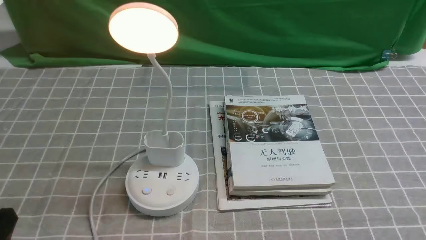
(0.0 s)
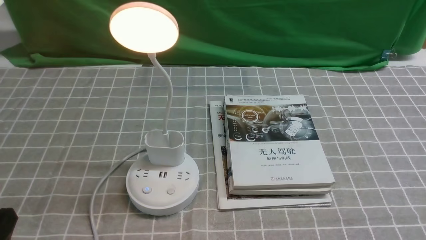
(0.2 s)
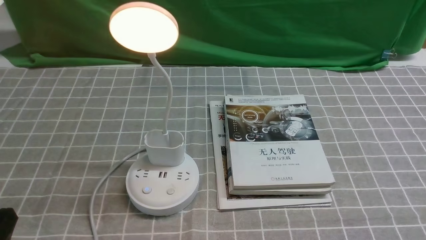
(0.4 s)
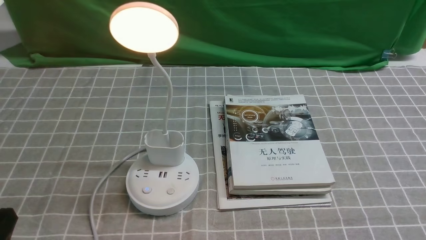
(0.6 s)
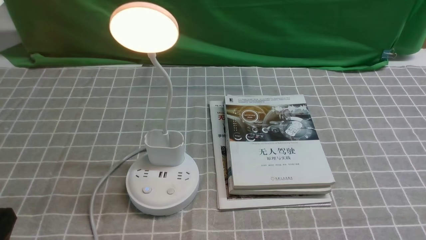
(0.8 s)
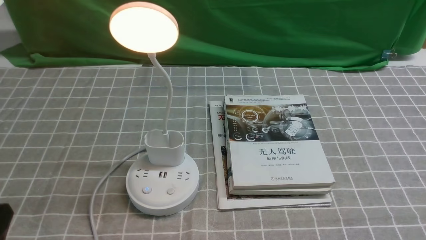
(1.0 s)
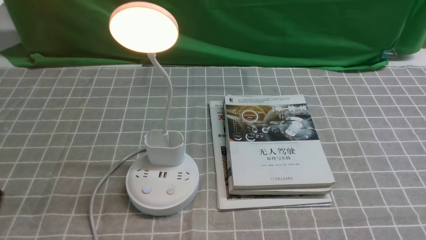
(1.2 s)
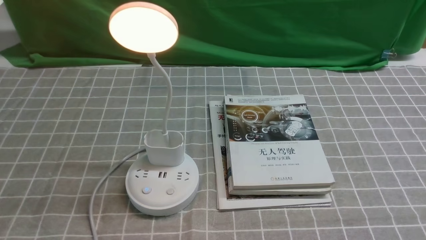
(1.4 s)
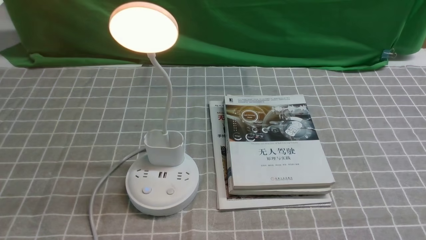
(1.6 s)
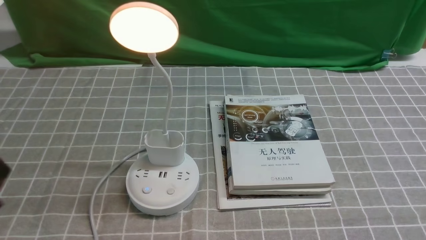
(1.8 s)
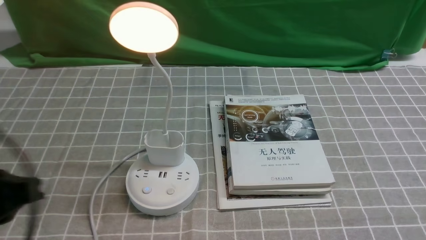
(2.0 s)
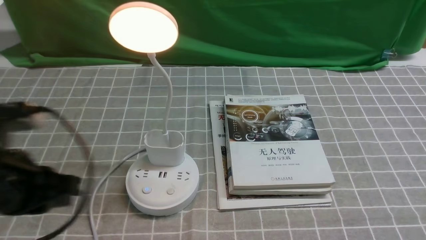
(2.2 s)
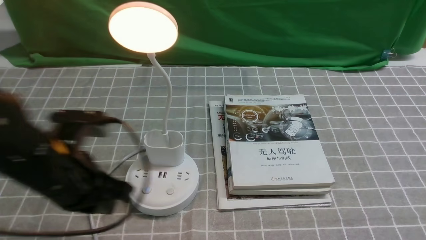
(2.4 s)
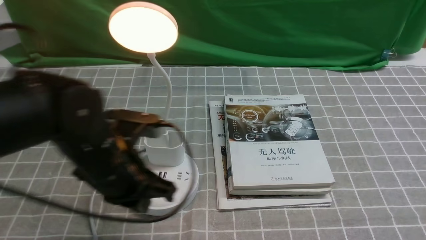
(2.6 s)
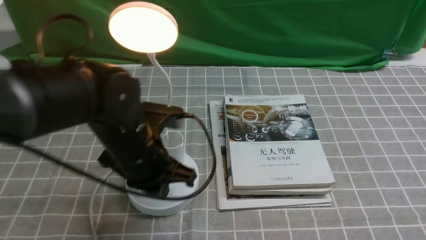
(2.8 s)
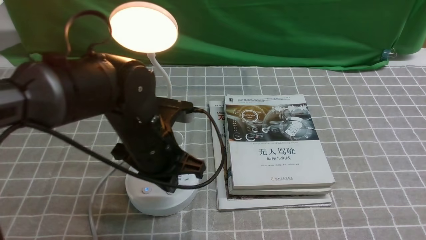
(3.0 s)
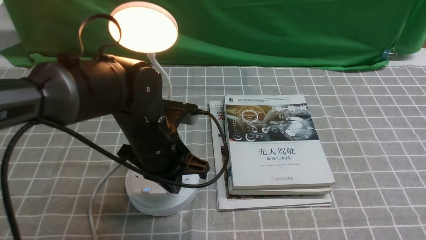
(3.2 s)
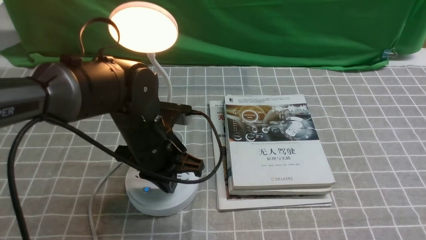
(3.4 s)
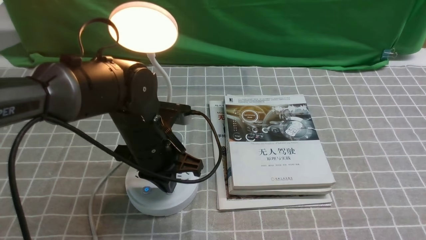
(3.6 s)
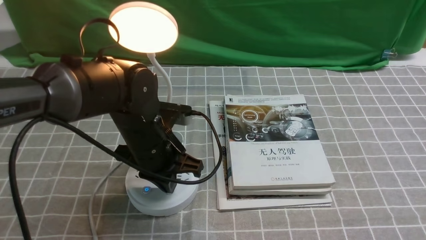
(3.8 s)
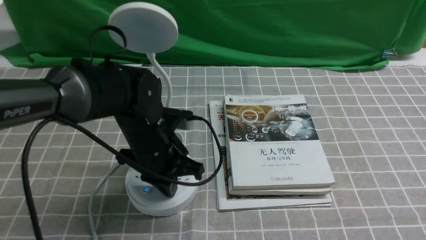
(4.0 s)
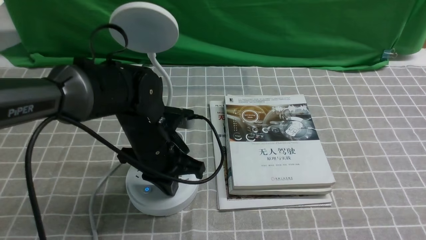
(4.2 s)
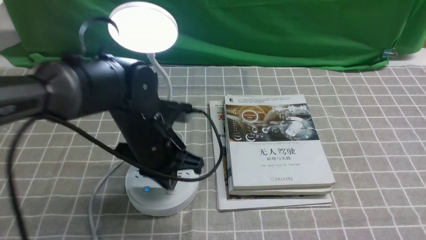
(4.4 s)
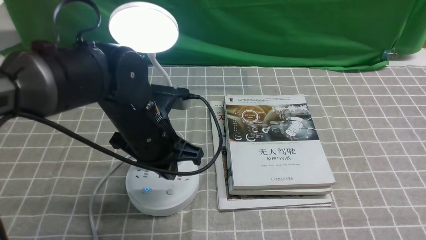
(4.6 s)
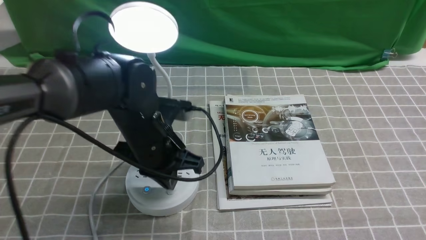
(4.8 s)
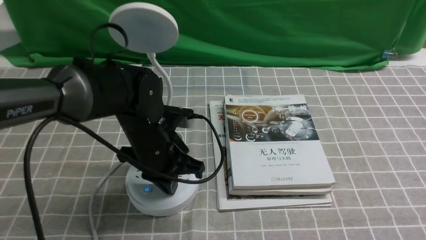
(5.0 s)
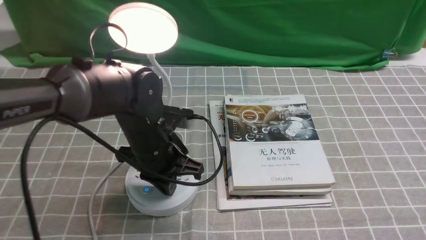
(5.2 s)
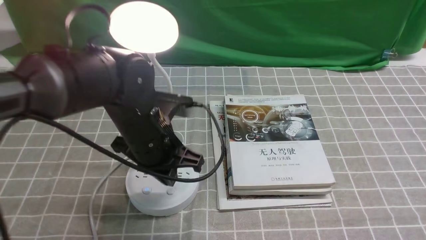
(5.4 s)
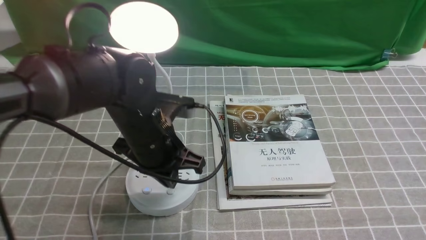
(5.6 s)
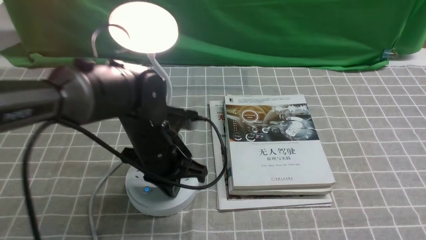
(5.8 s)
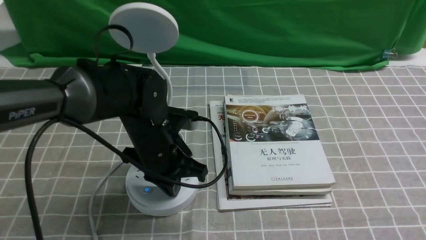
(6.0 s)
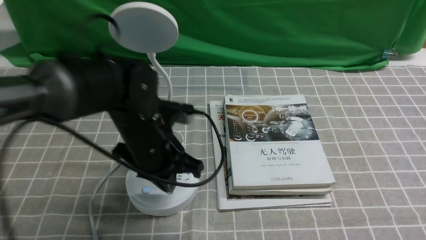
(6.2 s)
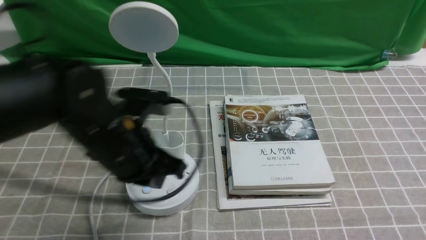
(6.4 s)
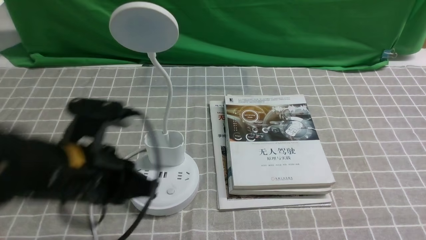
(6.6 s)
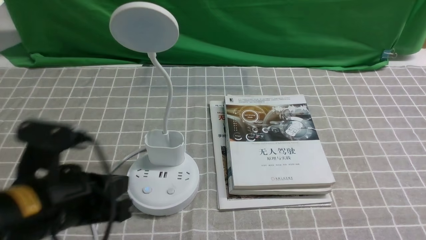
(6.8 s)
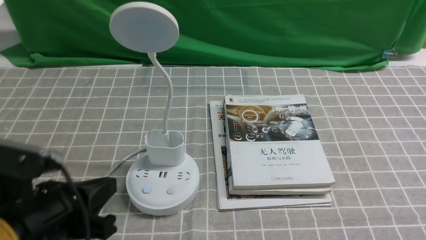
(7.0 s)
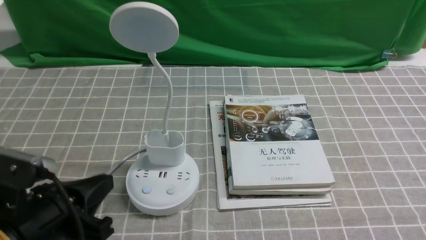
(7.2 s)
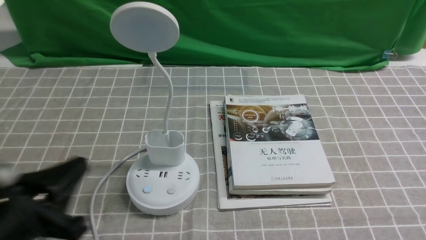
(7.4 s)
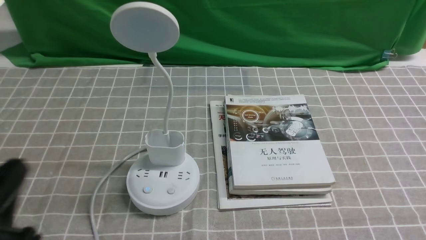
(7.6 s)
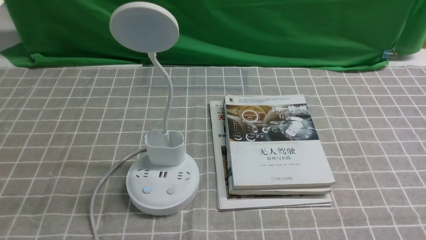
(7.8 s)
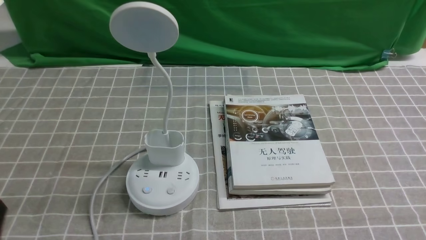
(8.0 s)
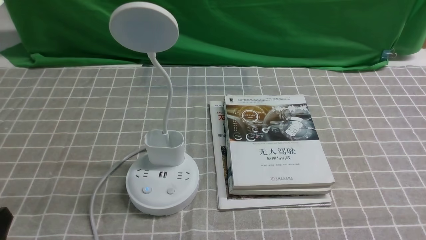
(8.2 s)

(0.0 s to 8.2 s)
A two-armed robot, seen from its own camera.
Task of the whole recording: turn off the desk lamp on the grey coffee tablecloth by hand.
Step, 0.0 s - 6.2 s: use the left arm to press the button switch on the lamp holder.
0.0 s - 1.6 s: The left gripper is displaced upward by approximately 5 cm.
1.6 s - 3.2 s: The left gripper heads forward and to the right, covering approximately 30 cm.
3.2 s - 5.0 s: The grippers move only a little.
5.0 s - 6.6 s: The left gripper heads backward, to the left and upward, covering about 15 cm.
6.6 s - 8.2 s: The left gripper goes approximately 20 cm backward, to the left and downward, and opens.

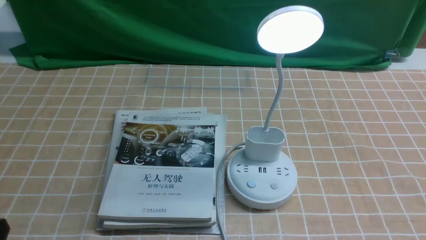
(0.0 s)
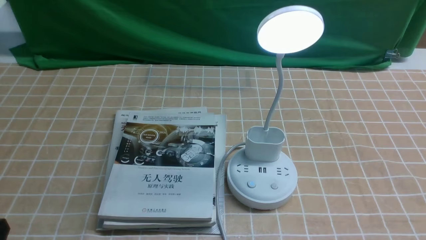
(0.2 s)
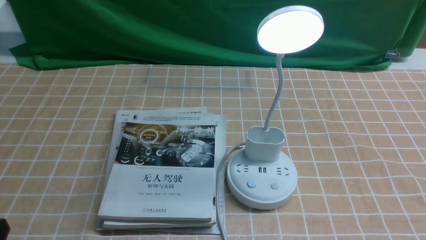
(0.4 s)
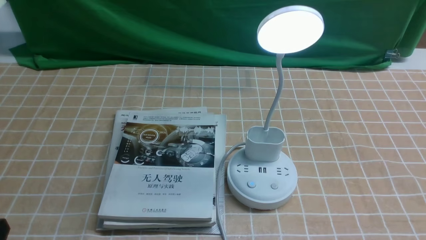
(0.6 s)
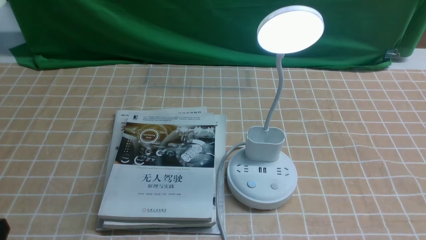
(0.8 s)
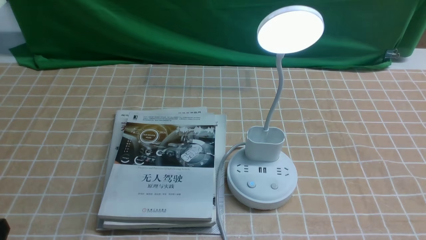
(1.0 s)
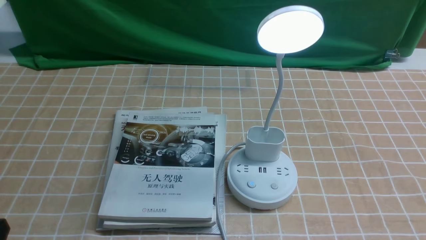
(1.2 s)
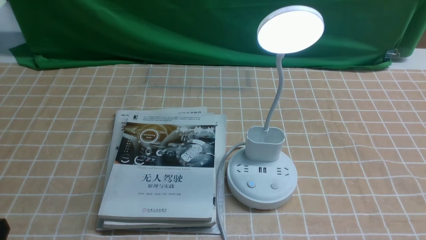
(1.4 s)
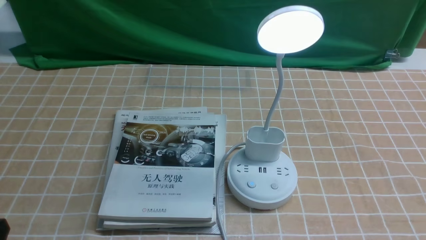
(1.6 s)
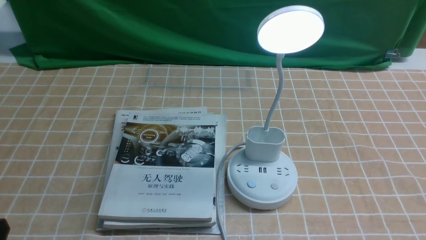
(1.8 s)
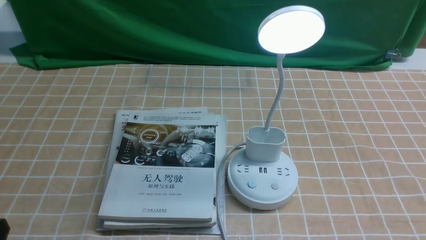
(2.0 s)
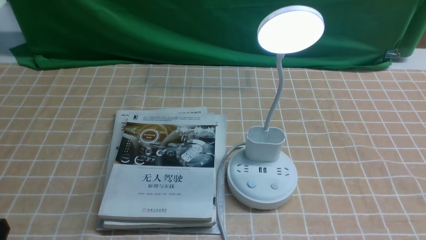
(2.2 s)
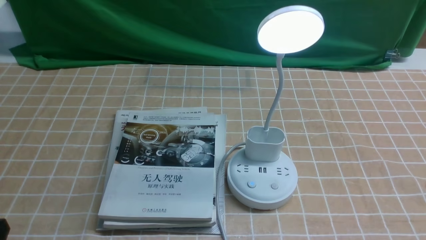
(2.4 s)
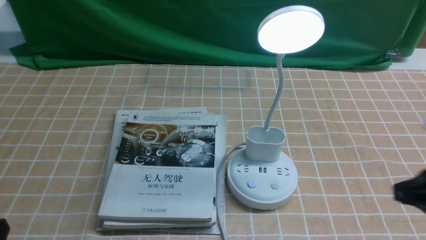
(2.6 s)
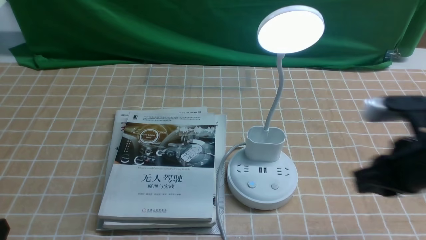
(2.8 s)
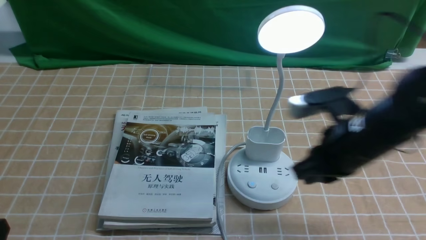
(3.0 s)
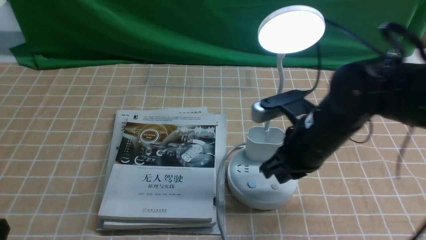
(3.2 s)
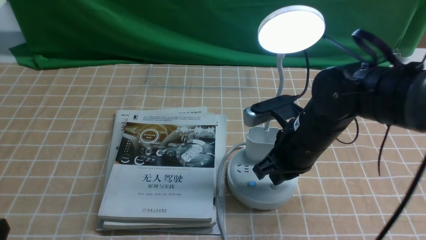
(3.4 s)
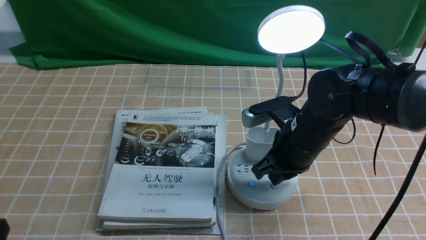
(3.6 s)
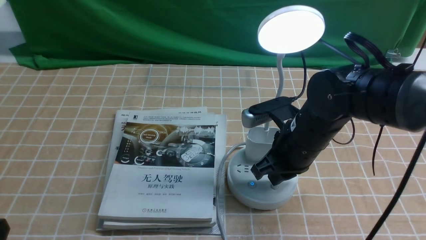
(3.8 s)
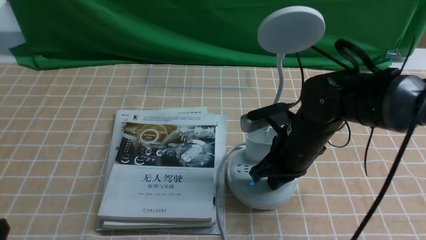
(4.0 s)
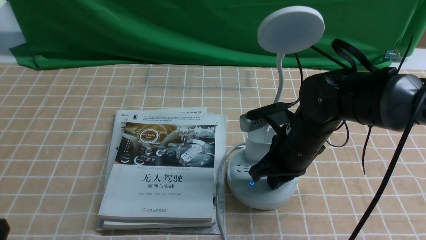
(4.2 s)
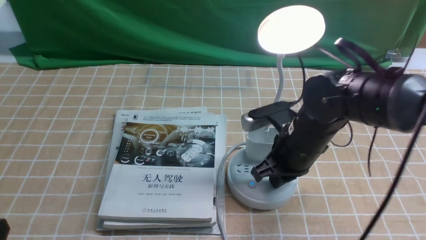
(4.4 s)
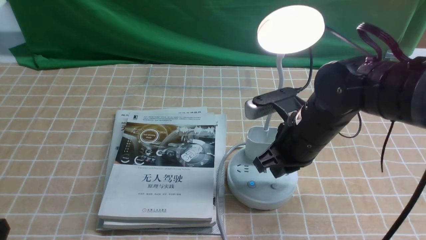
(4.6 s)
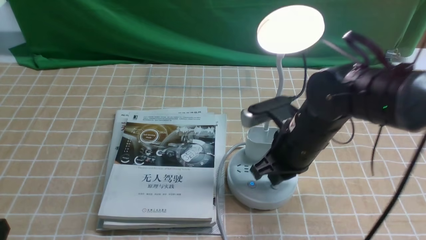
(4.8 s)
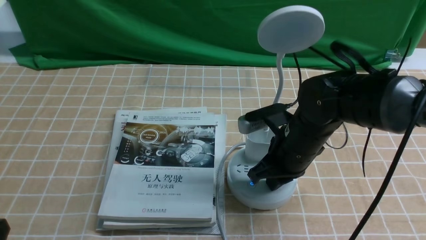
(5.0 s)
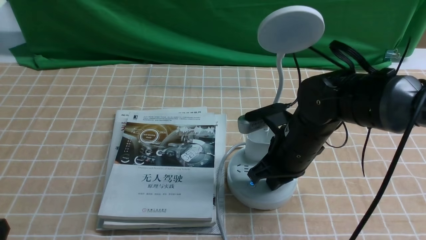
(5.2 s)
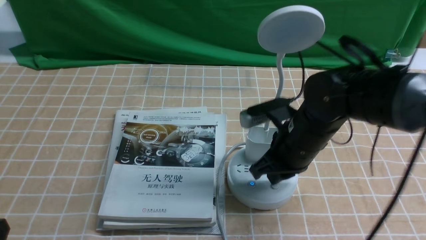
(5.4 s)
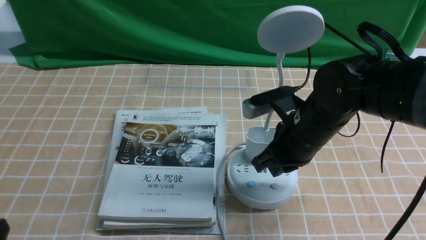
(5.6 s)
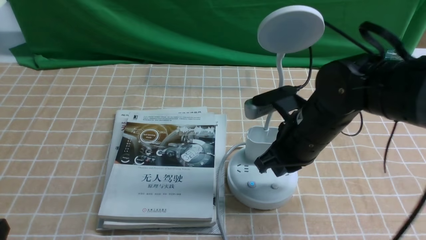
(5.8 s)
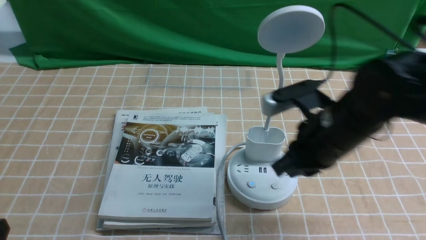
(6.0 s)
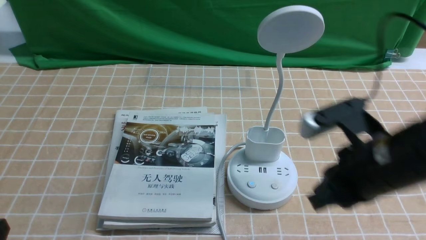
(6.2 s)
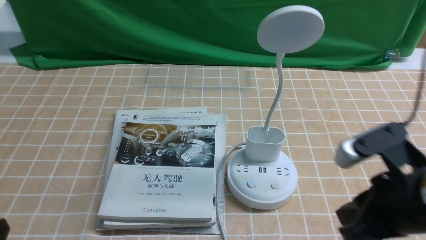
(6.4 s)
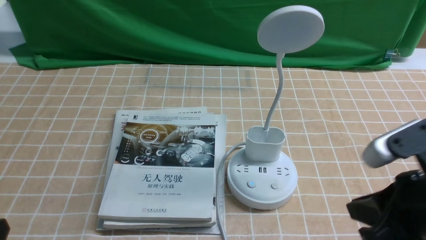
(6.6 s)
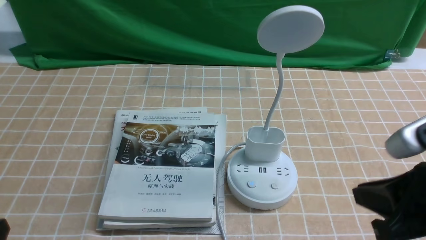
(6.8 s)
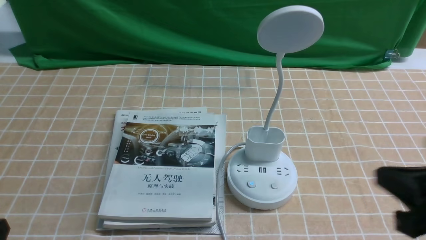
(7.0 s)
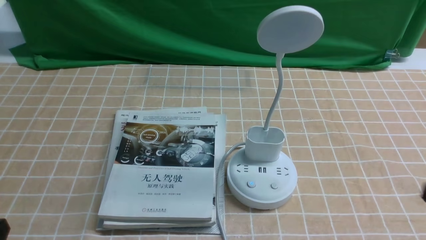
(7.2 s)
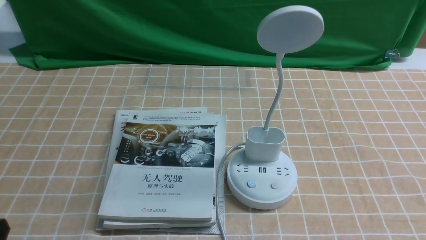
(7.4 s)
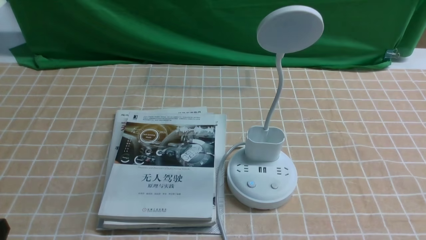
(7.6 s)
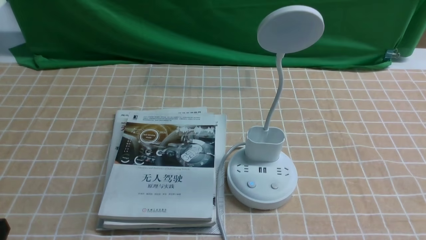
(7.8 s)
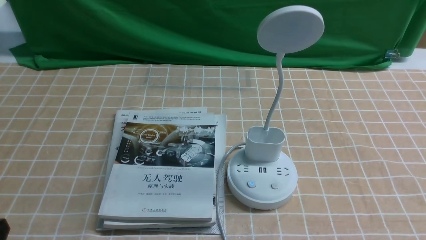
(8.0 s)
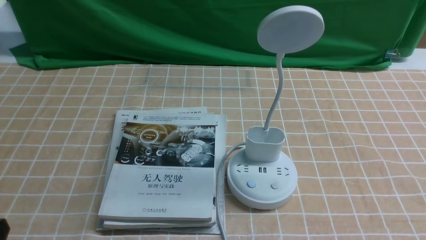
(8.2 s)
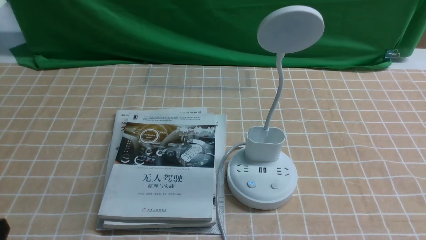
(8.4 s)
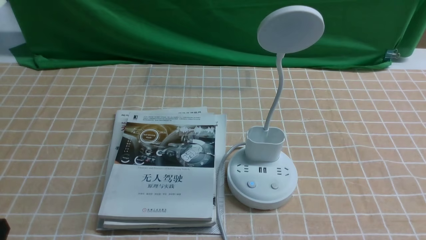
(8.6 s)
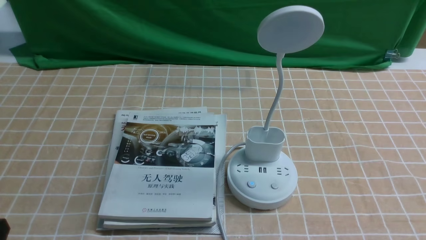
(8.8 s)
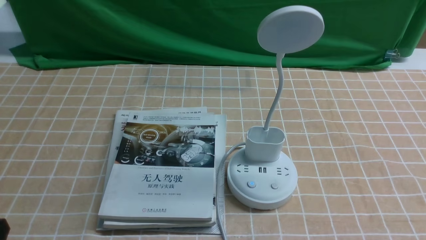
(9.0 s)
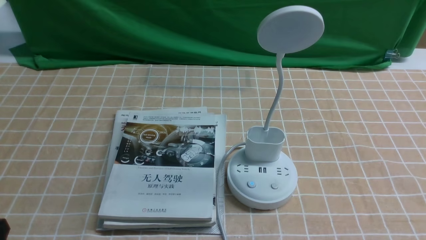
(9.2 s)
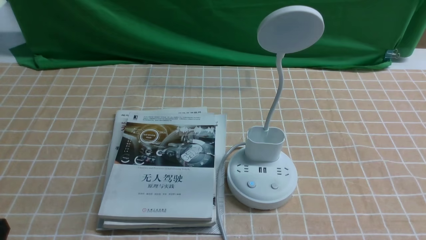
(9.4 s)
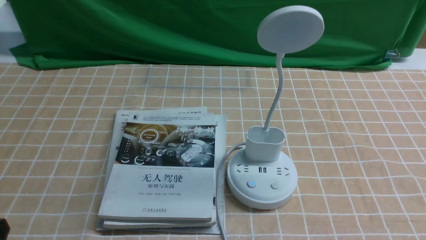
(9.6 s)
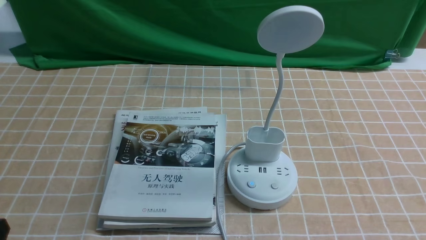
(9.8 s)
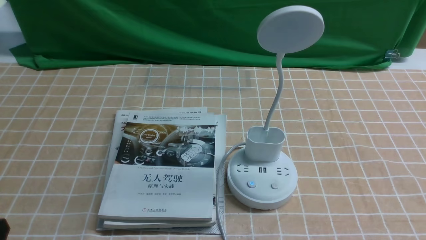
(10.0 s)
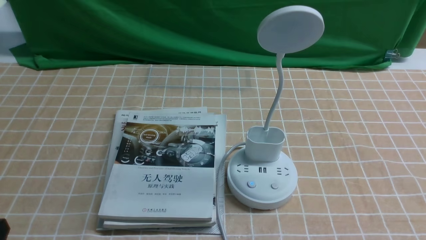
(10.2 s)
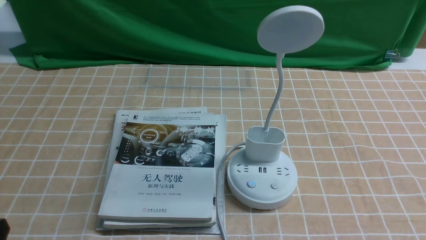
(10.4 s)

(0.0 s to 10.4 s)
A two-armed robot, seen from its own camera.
Task of the whole recording: turn off the desk lamp on the light coffee tablecloth by hand.
Step, 0.0 s - 5.8 s: use the right arm to press the button switch on the lamp holder.
1.4 s - 3.0 s: The right gripper is displaced forward and to the left by roughly 25 cm, and closes up.
3.0 s - 4.4 s: The right gripper travels to the left by about 5 cm.
4.4 s - 6.0 s: The right gripper shifts roughly 10 cm backward and upward.
6.0 s - 7.4 s: The right gripper shifts some 25 cm backward and to the right.
